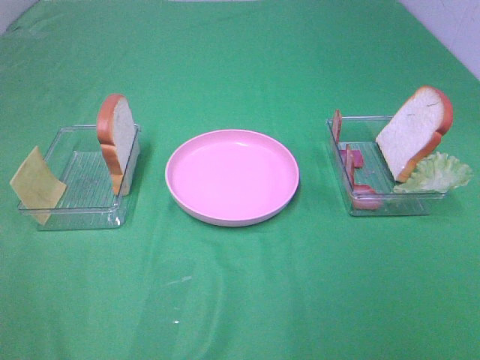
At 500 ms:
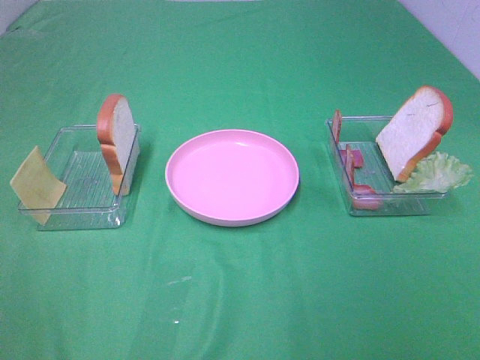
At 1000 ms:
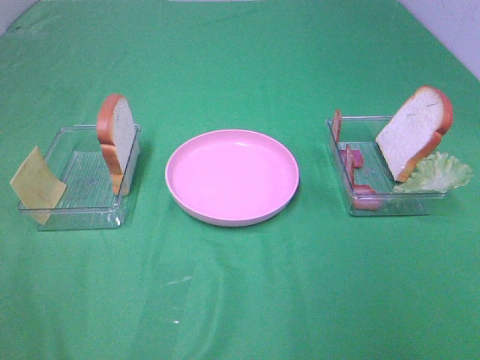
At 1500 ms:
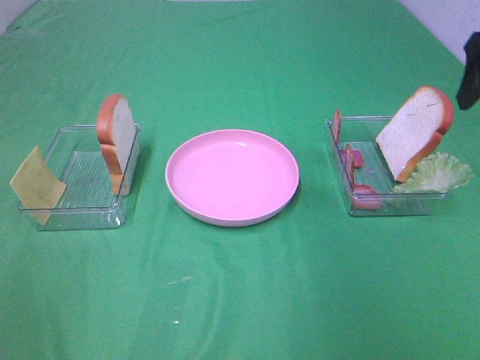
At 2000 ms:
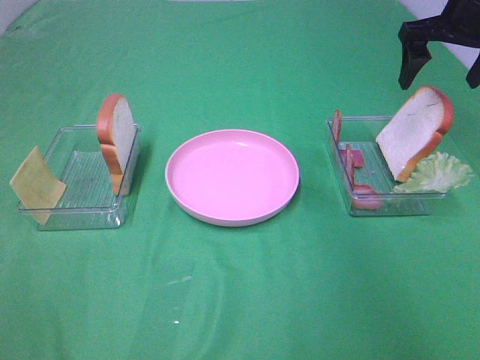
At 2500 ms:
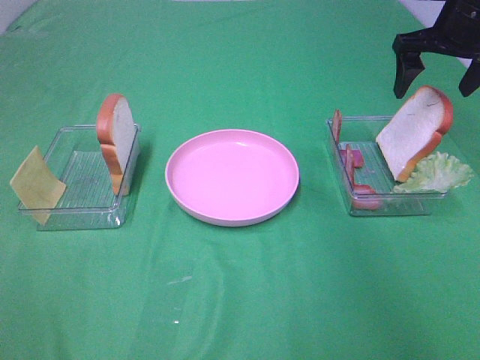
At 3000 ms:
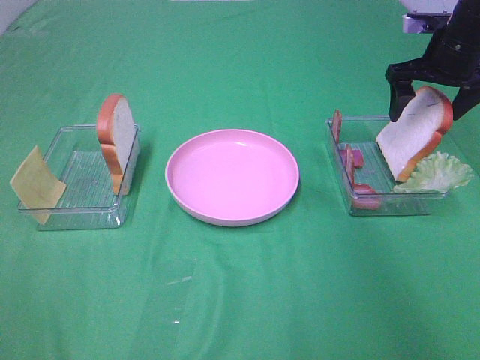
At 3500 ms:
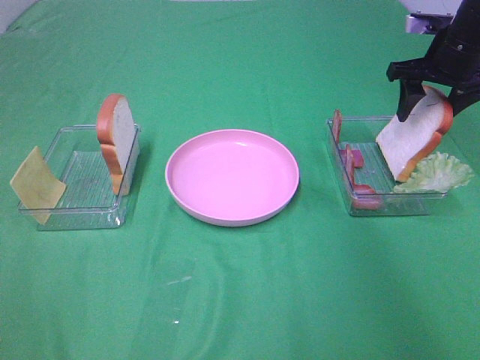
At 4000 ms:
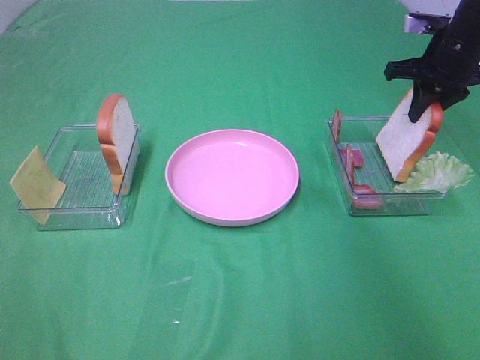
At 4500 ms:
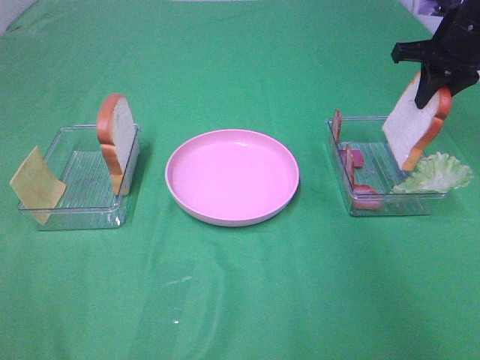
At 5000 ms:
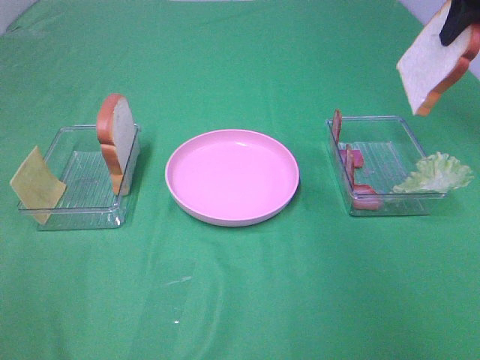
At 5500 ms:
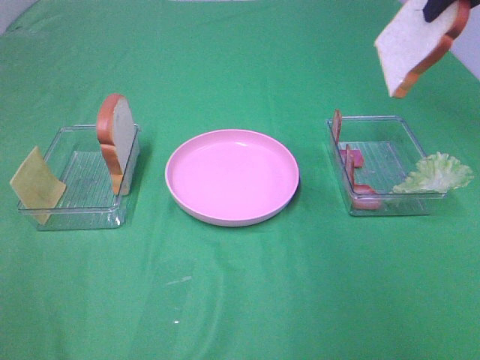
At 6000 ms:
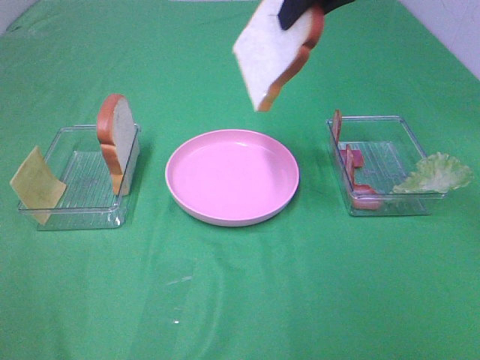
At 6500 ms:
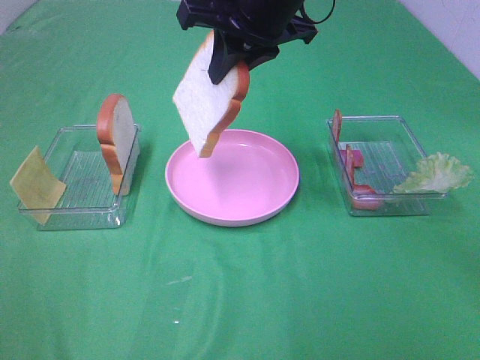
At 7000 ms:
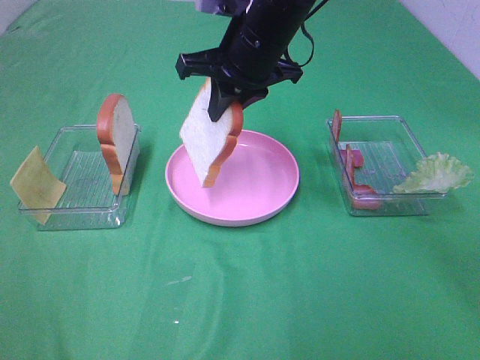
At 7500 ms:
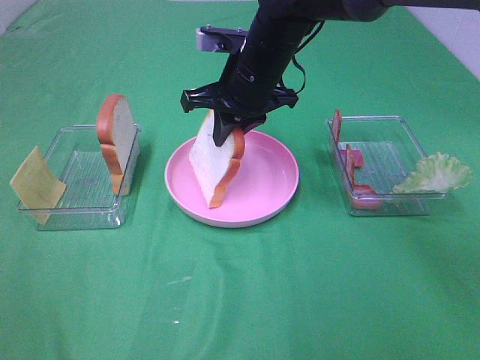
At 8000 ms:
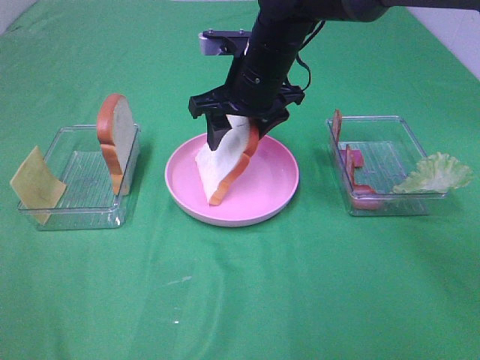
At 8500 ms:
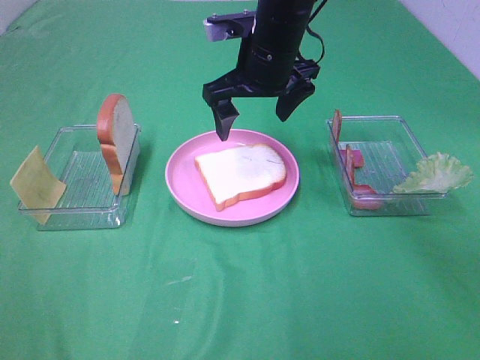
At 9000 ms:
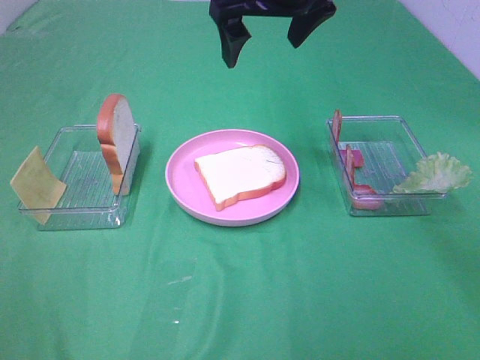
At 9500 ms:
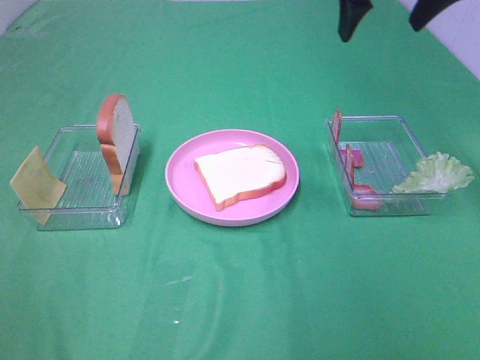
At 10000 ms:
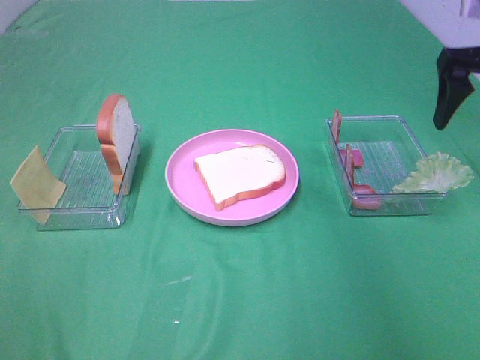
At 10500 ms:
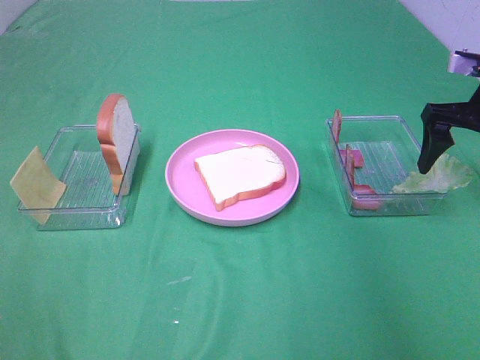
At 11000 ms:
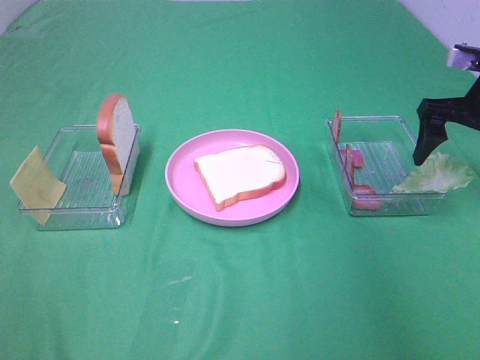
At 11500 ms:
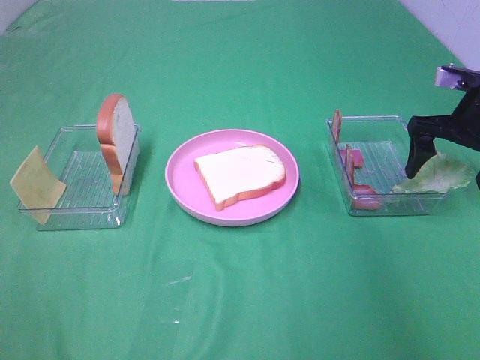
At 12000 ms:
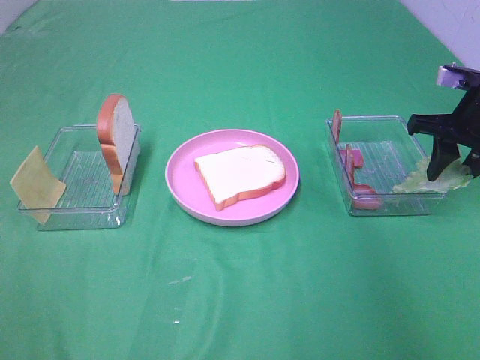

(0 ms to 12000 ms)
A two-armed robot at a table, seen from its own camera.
Task of the whole recording: Make sandwiches.
Step, 0 ms - 3500 ms: Right hand:grab the bread slice.
Step, 4000 ms - 8000 ms: Right hand:place the bread slice on the plate.
0 ms - 2000 ms: The right gripper heads forward, covering some 40 cm.
2000 ms - 4000 ms: The right gripper shifts approximately 5 cm downward, and closes up.
4000 ms - 6000 ms: The right gripper moves to the left, upward and backward, some 25 cm.
6000 ms - 8000 ms: The right gripper heads downward and to the left, covering about 15 cm, and opens up.
8000 ms - 10000 ms: The right gripper travels to the right by about 30 cm.
10000 ms - 12000 ms: The right gripper is displaced downward by some 10 cm, and closes its fingers.

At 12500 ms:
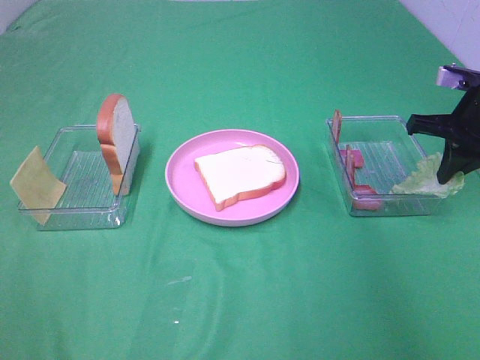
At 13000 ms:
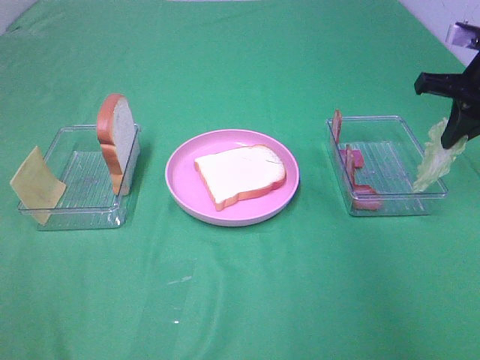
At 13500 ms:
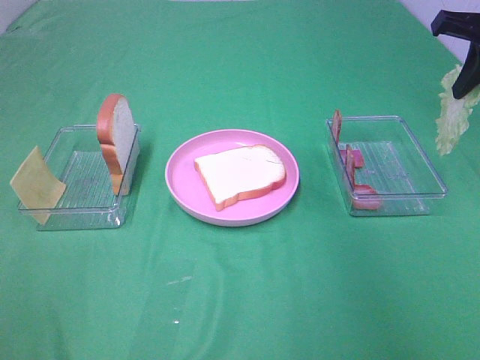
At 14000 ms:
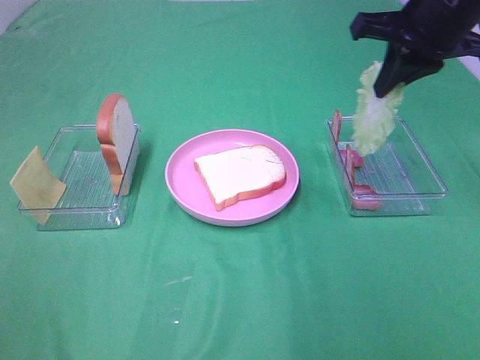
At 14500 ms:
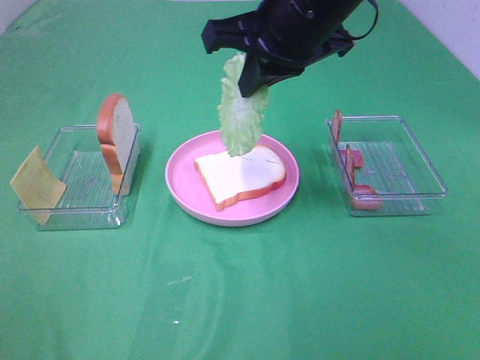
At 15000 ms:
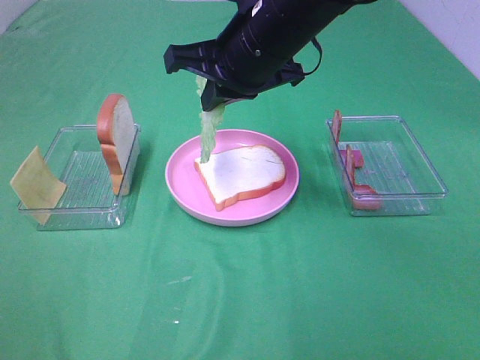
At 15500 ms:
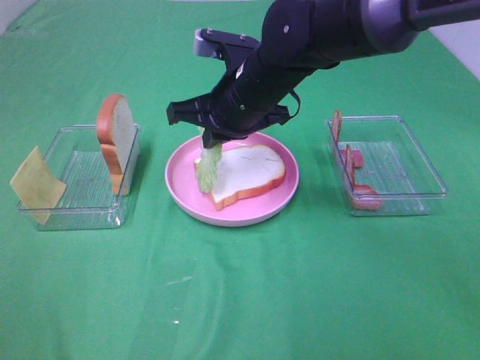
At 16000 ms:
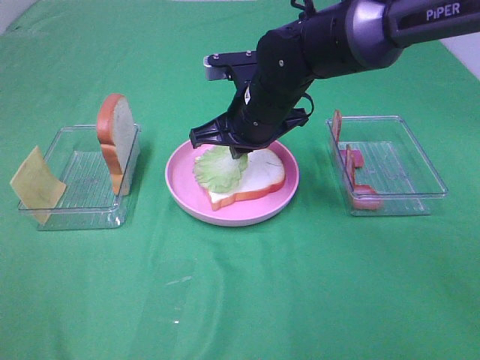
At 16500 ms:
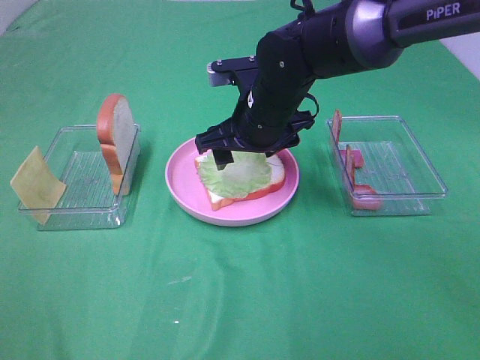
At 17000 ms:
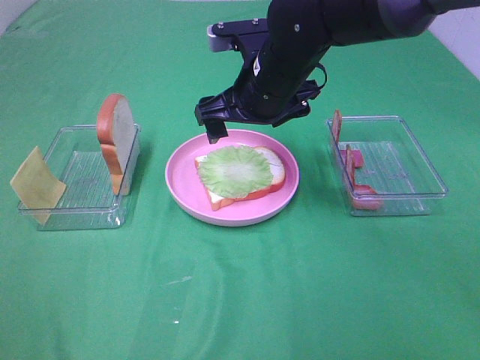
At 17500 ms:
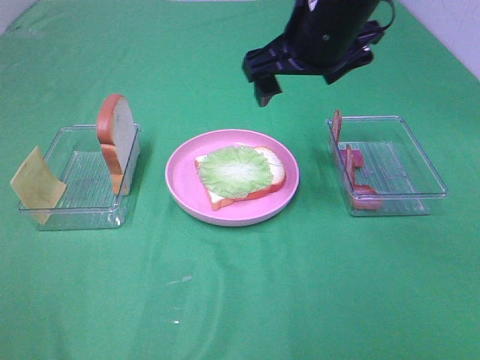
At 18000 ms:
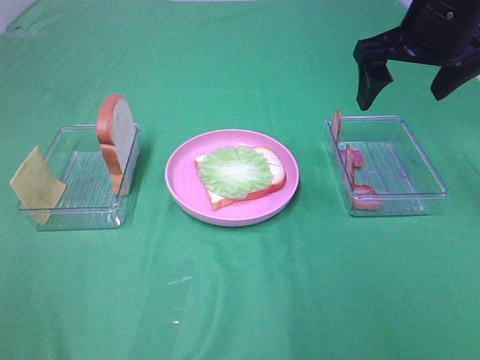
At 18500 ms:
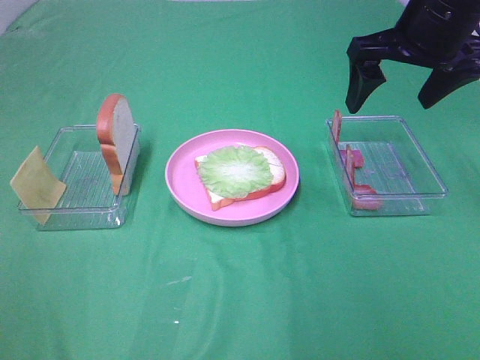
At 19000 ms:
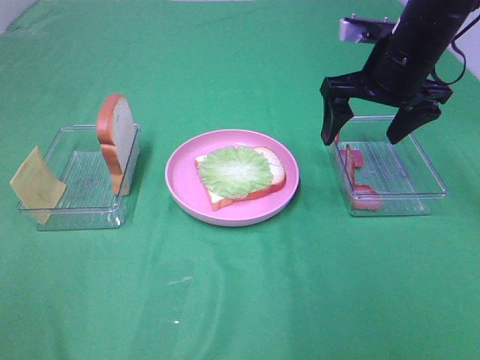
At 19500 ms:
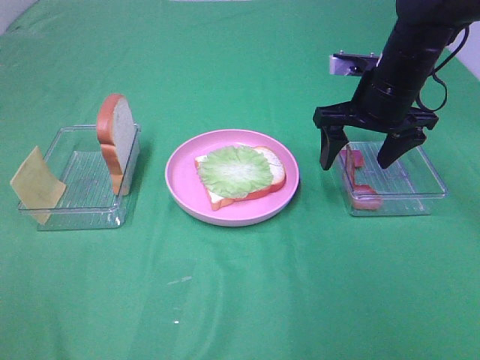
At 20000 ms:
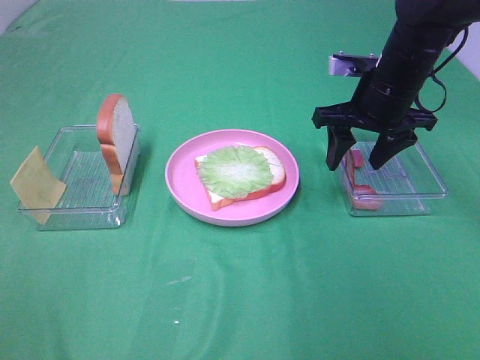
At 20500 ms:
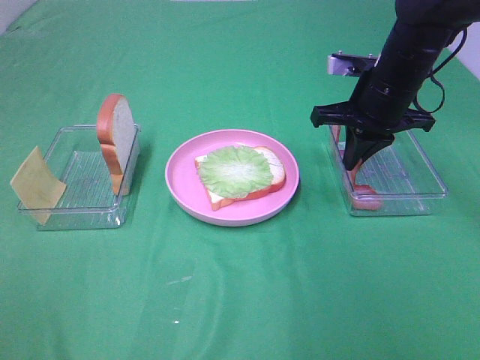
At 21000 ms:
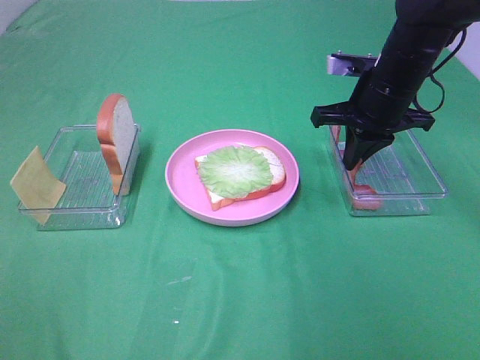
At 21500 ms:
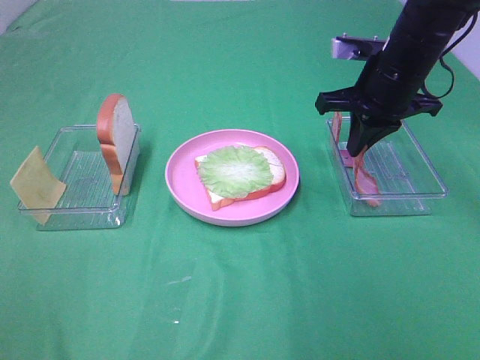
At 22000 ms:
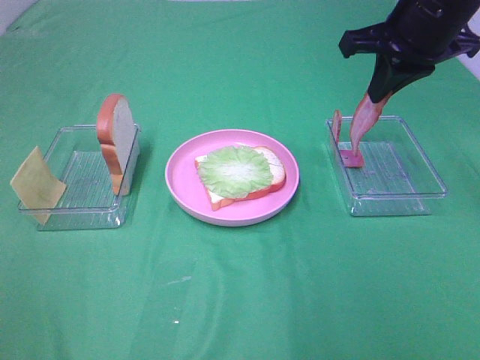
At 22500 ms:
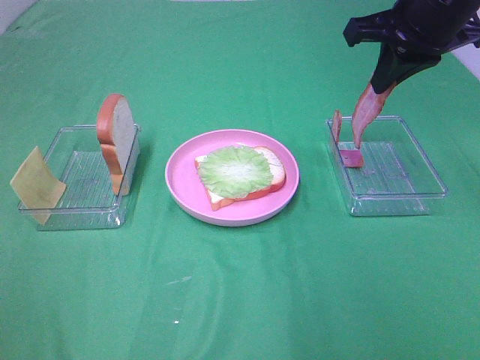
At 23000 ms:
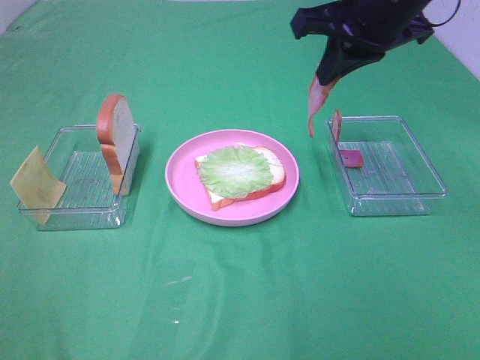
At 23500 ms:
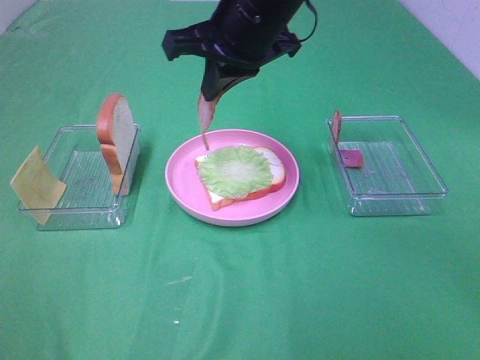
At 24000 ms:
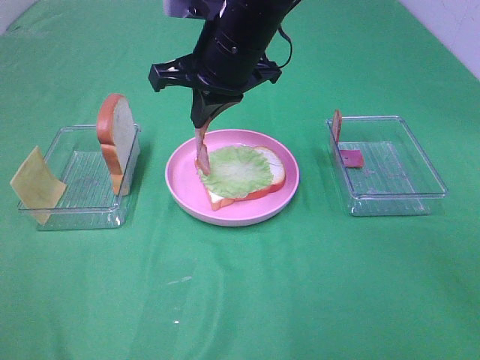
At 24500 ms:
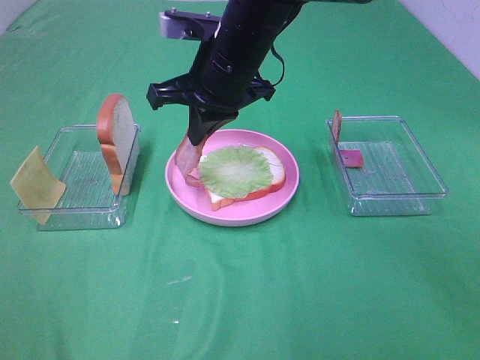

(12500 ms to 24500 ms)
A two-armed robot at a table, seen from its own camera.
Task of the whole recording: Make sandwiches.
Step, 13000 ms - 16500 ms: Right hand:place the lettuce slice on the bread slice.
Step, 17000 ms - 20500 ms: Right hand:grab the bacon.
12500 ms - 14500 ms: The right gripper travels to the left and upward by about 30 cm.
14500 ms - 16500 ms: The right gripper travels downward by some 15 cm, and opens.
16500 ms - 18500 ms: The right gripper is displaced to the right and upward by approximately 20 cm.
18500 ms - 20500 ms: The right gripper shifts about 10 cm downward, and closes up.
20500 ms - 22500 ms: The right gripper heads upward, covering some 10 cm.
22500 ms - 24500 ms: The right gripper goes roughly 20 cm to the left.

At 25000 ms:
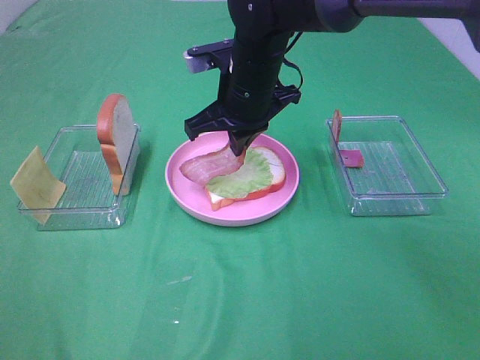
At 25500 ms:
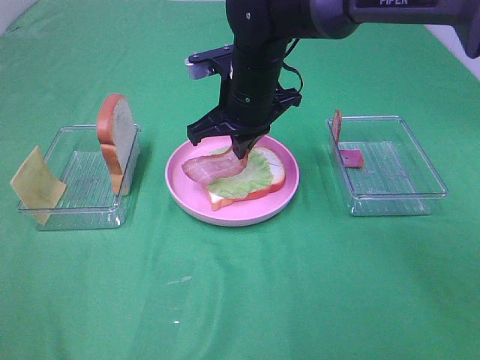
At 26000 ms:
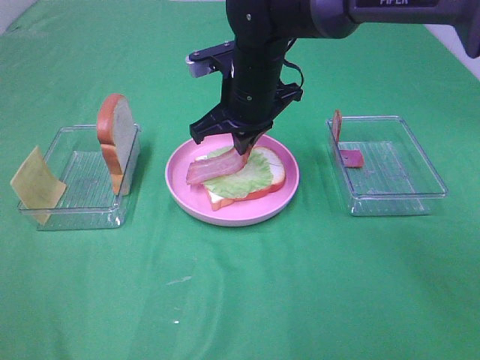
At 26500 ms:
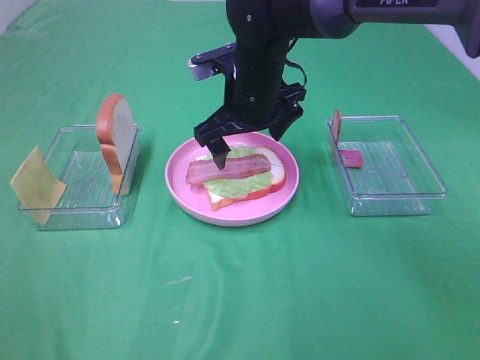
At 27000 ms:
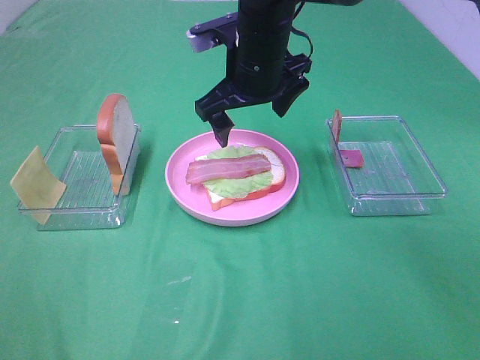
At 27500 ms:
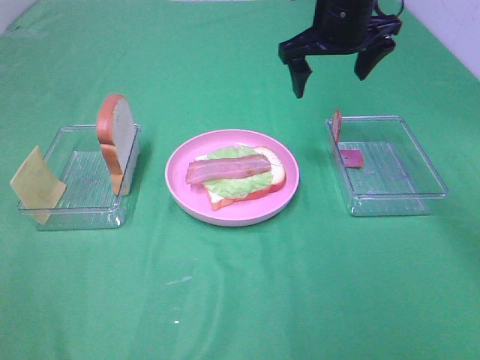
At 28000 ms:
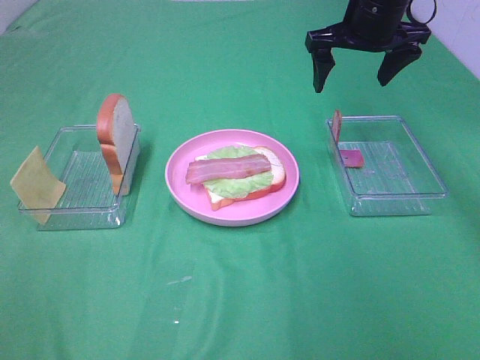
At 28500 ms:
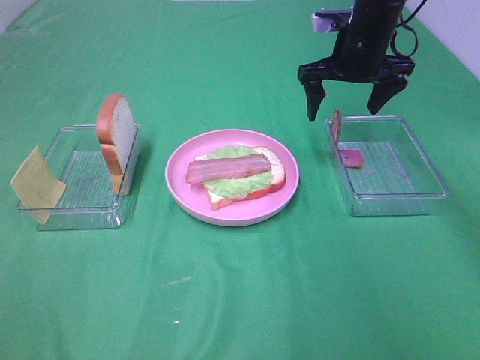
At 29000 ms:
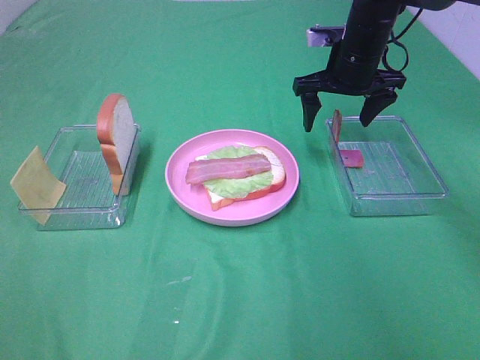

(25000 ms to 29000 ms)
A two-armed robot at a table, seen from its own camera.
Task of the whole recording: Make sandwiches.
25000 ms - 27000 ms: The right gripper opens its fingers.
27000 ms - 29000 ms: The right gripper heads to the right and forward, covering roughly 15 cm.
